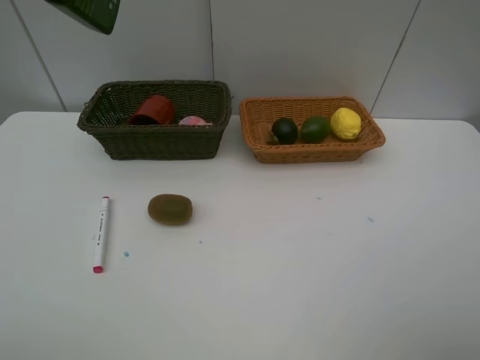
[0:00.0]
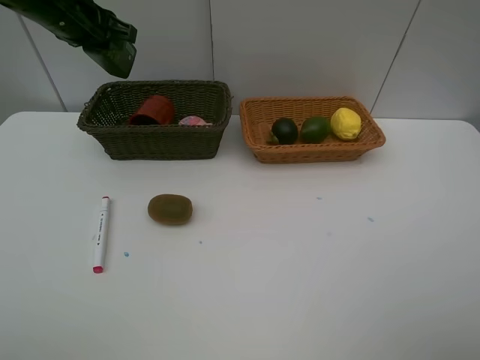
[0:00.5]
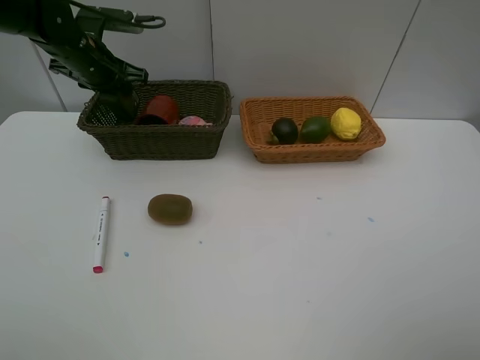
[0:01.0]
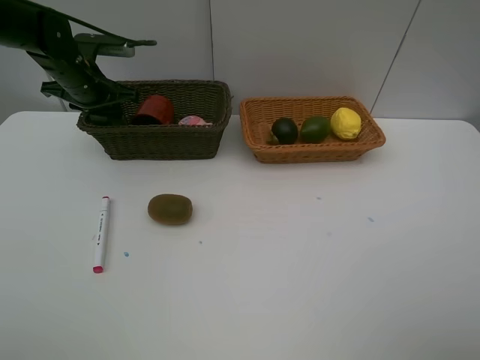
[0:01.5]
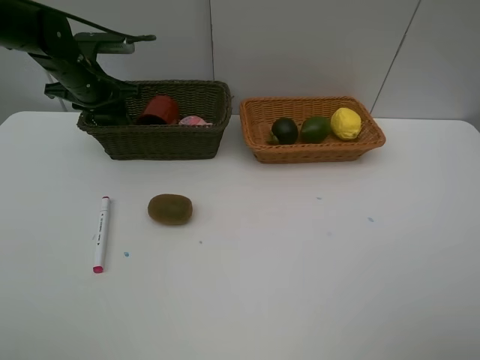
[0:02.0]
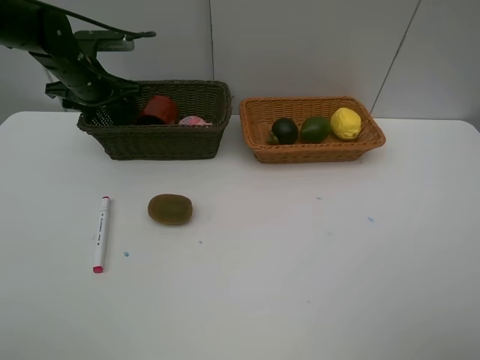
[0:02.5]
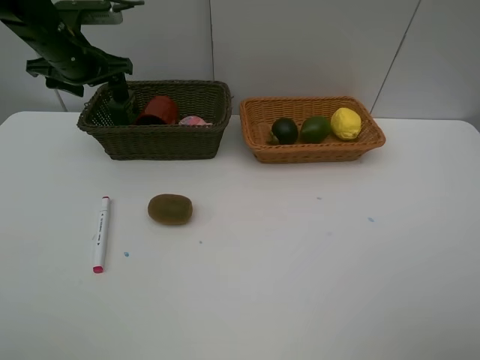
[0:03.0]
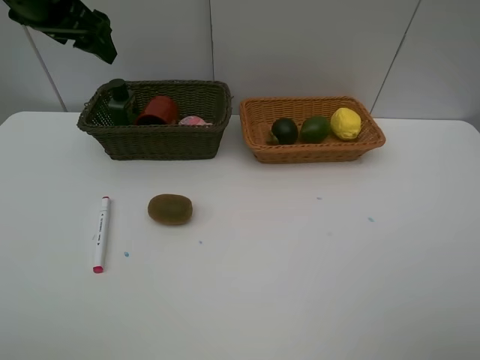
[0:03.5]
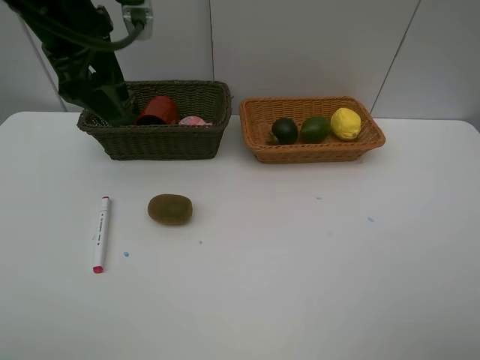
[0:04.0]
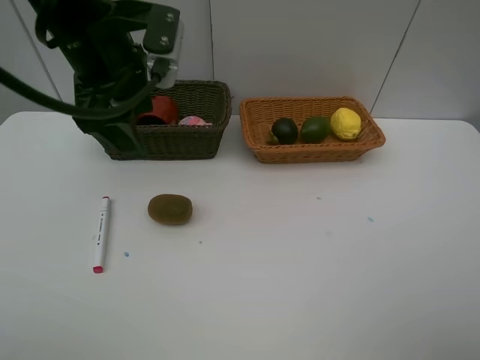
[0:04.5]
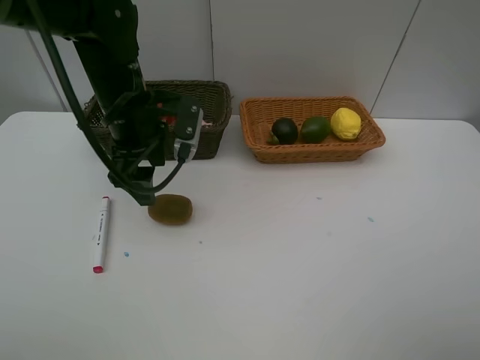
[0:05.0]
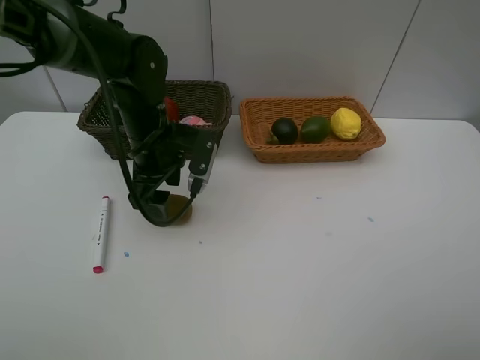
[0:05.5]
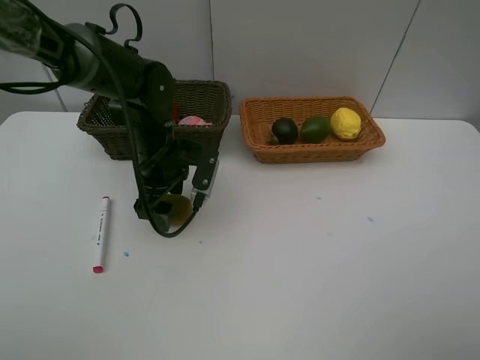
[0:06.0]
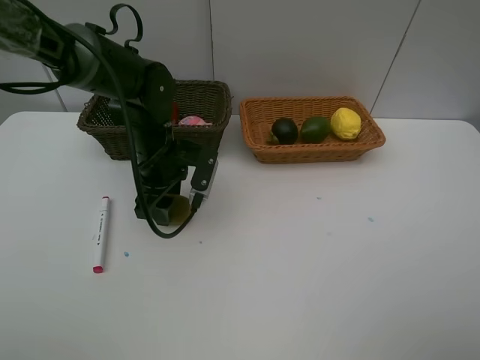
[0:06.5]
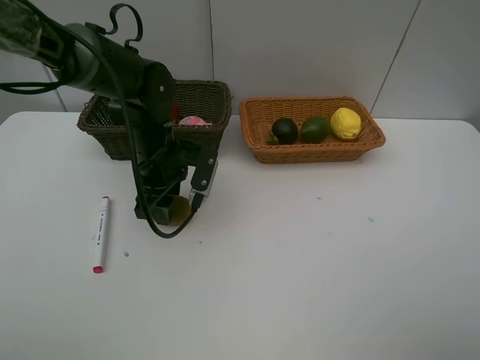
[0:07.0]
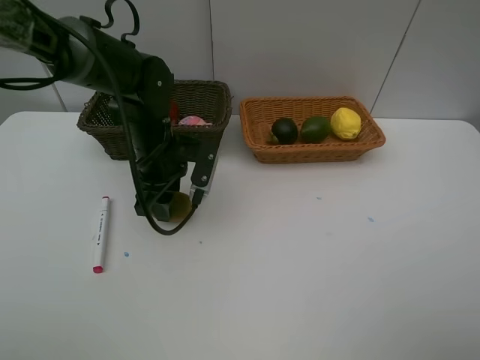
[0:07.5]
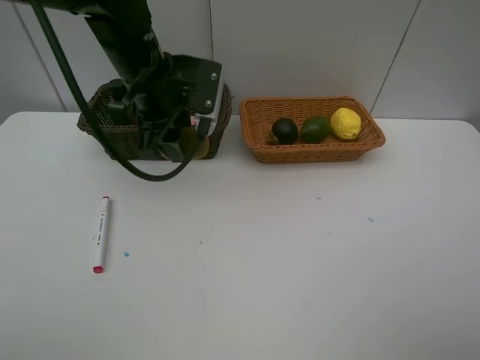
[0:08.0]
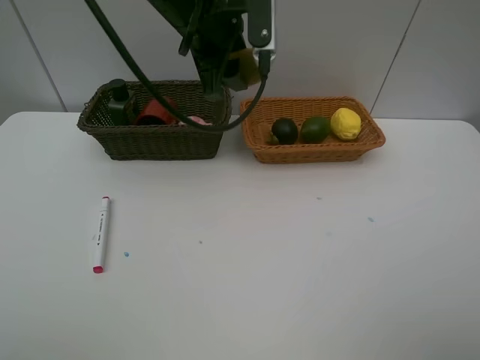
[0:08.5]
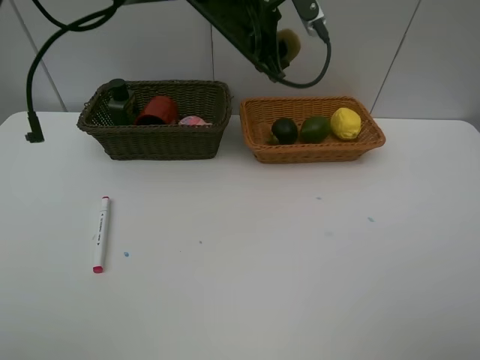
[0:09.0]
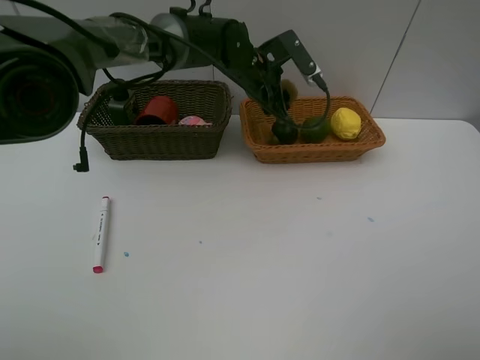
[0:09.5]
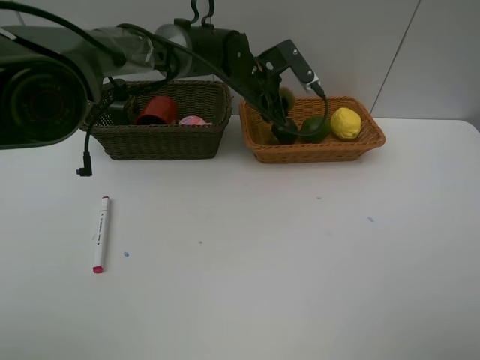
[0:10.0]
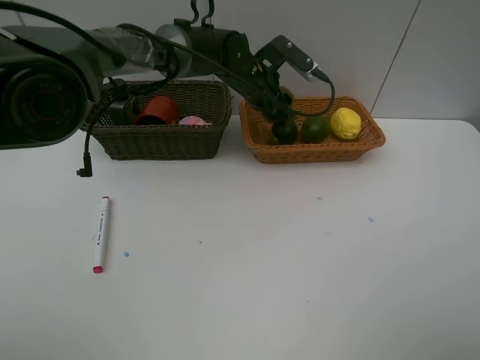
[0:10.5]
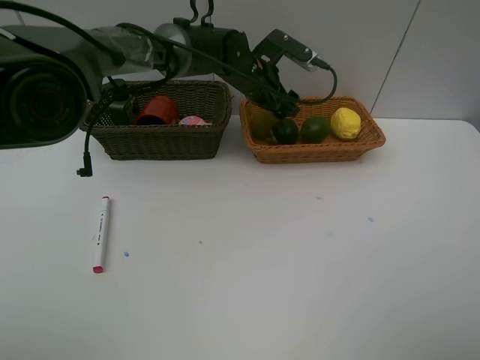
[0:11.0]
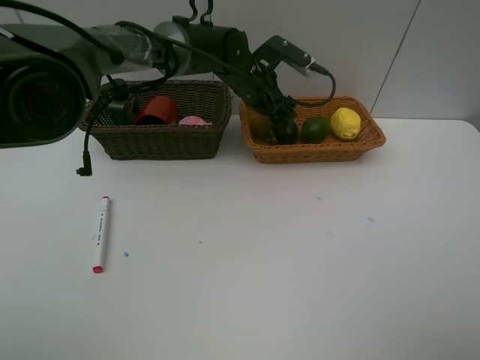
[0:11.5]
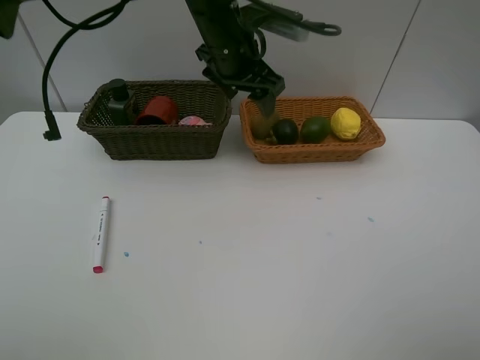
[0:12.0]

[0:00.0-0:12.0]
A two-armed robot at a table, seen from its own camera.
Task of the whole recording: Place multiple objects separately in different baskets.
Step, 0:00.0 to 0:03.0: Place the hard facial cleanser in the dark basket with left gripper.
Step, 0:03.5 to 0:07.5: Pick up kiwi with left gripper.
Step, 0:08.0 to 0:11.5: Place the kiwi in the light basket with left gripper.
0:00.0 to 0:02.0: The left gripper shifts roughly 20 cm downward and forward.
0:02.0 to 0:04.0: The left gripper travels upward, backward and to the right by roughly 20 cm, and opens up.
0:04.0 to 0:06.0: The left gripper shifts some 20 cm downward.
0:06.0 to 0:08.0: The left gripper heads upward, covering approximately 10 cm, and closes up.
0:08.0 to 0:10.0: The left gripper is displaced to the right, forward and downward by some 20 cm.
0:10.0 to 0:12.0: The left gripper moves upward and backward, about 10 cm, and opens.

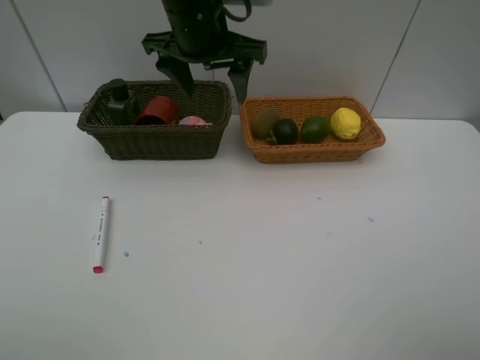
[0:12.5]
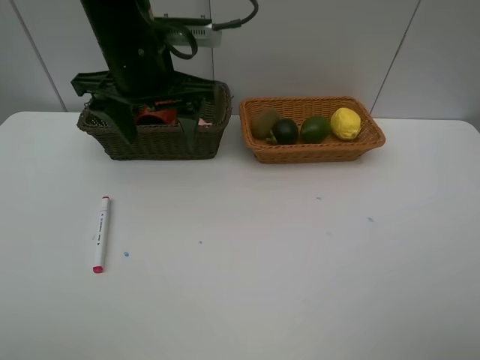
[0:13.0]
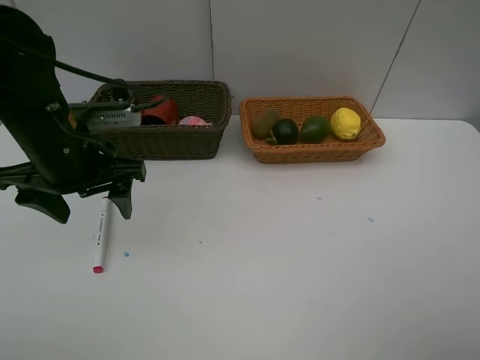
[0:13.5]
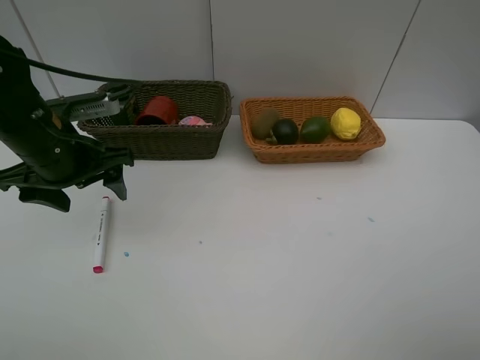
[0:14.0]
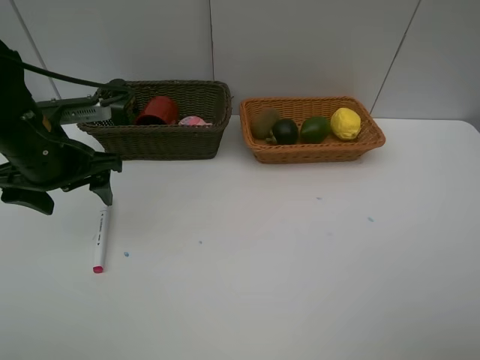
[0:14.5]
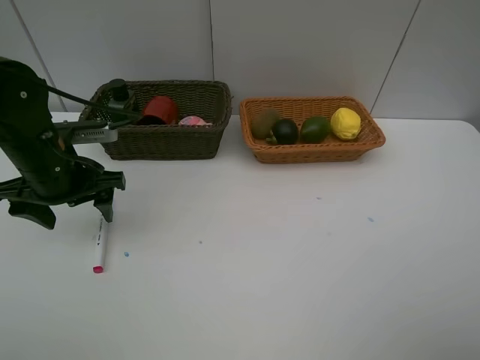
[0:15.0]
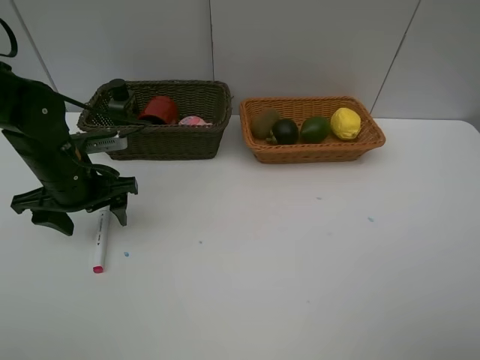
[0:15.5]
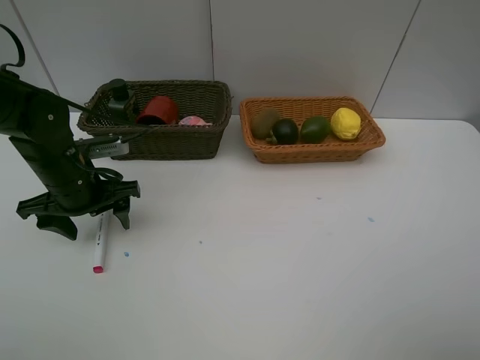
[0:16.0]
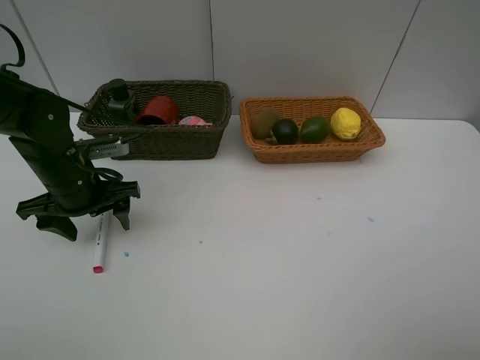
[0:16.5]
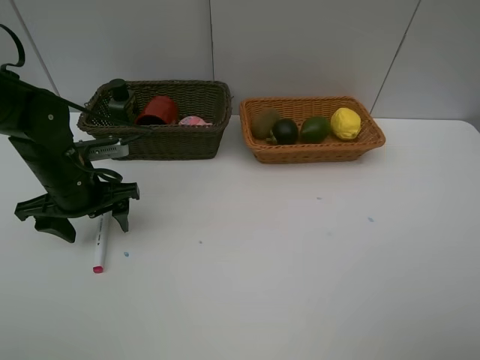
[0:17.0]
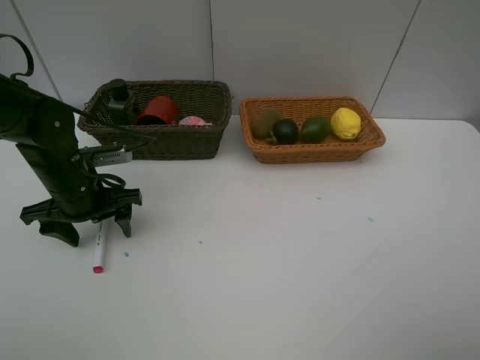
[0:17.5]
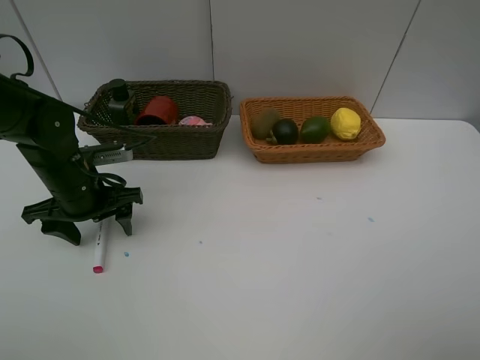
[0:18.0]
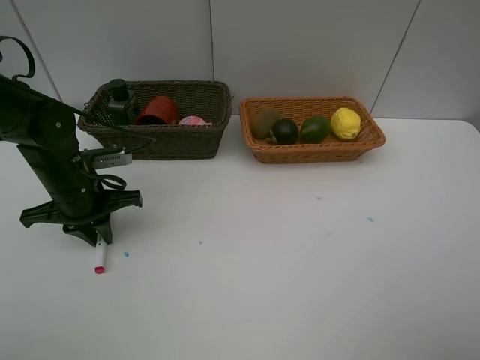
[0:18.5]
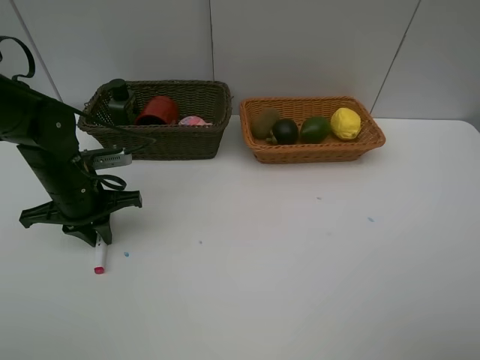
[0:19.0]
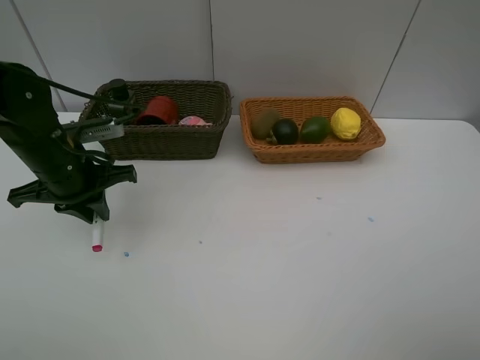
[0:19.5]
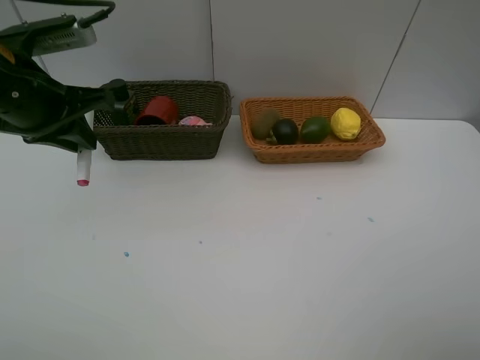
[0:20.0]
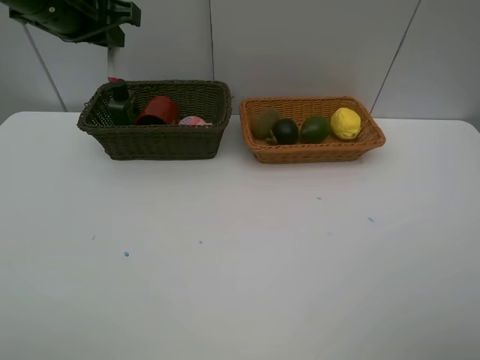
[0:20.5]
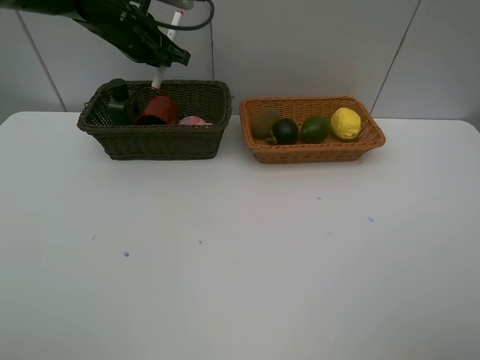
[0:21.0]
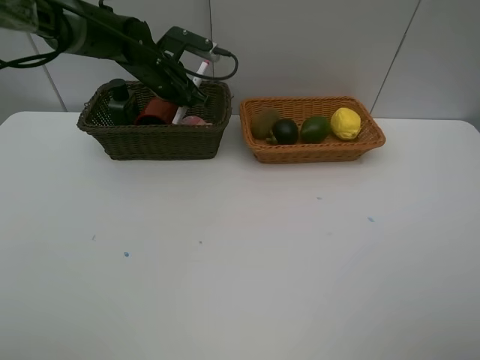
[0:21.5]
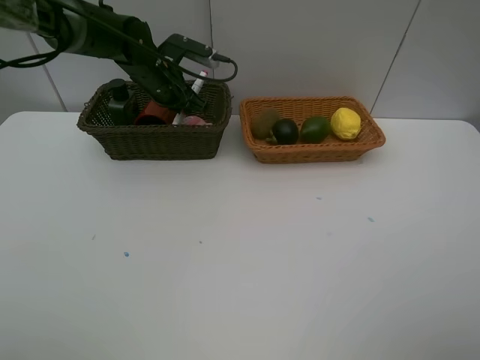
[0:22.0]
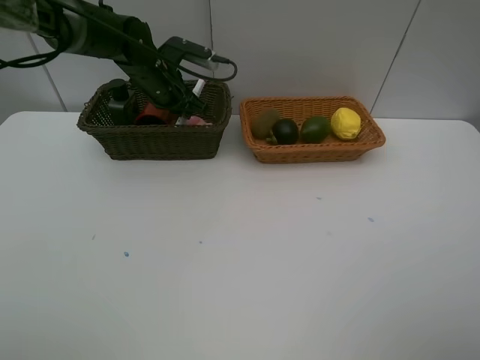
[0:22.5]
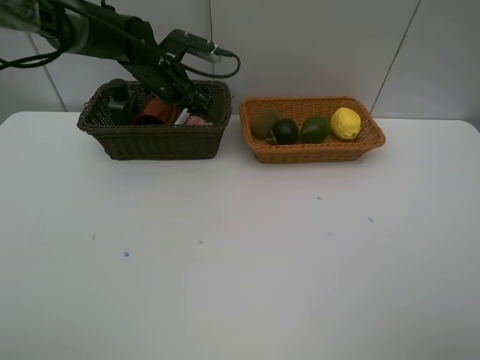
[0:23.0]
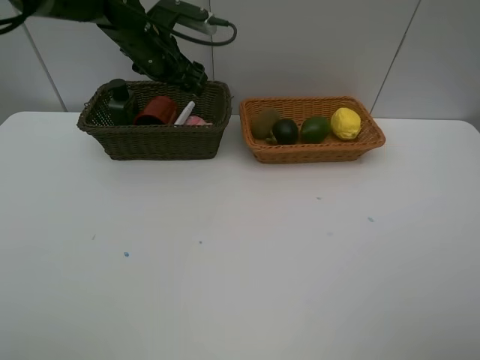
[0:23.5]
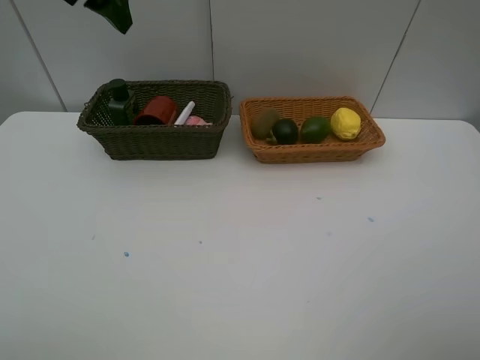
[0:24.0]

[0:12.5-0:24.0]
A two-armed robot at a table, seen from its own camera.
Task of the whole recording: Place multiple objects separately in different baskets.
Step, 0:12.5 to 0:19.0: Pick up the red marker with left gripper.
Step, 0:19.5 to 0:23.0: Place the red marker in the dark basket with left gripper.
0:12.5 to 0:14.5: The left gripper heads to the left, downward and backward, covering approximately 25 cm.
0:14.5 to 0:16.5: The left gripper goes about 5 cm downward.
0:16.5 to 0:18.5: The left gripper closes its fingers.
0:18.5 to 0:20.0: The left gripper heads upward, covering roughly 15 cm.
0:20.0 to 0:22.0: The left gripper moves forward, downward and to the right, roughly 25 cm.
0:22.0 to 0:24.0: The left gripper shifts roughly 25 cm upward and backward, and opens its fingers.

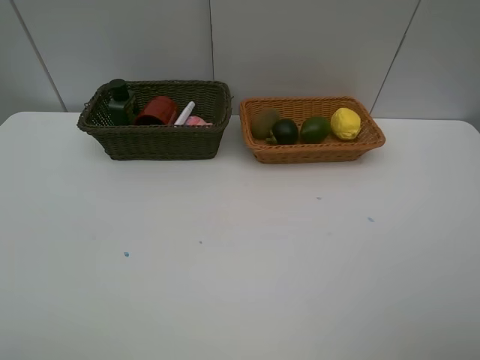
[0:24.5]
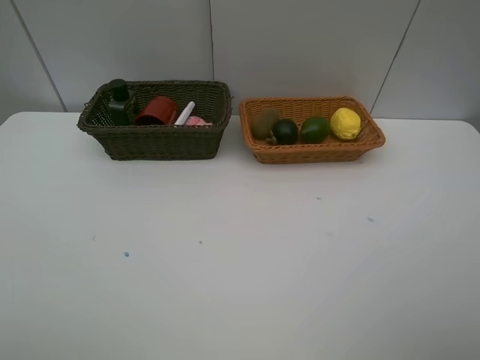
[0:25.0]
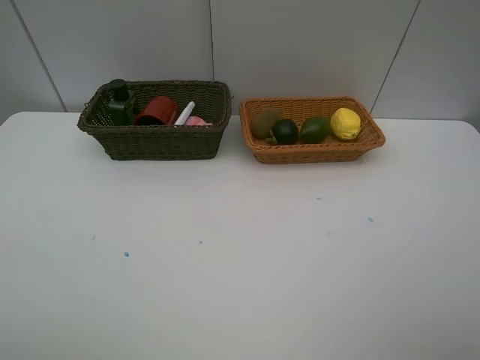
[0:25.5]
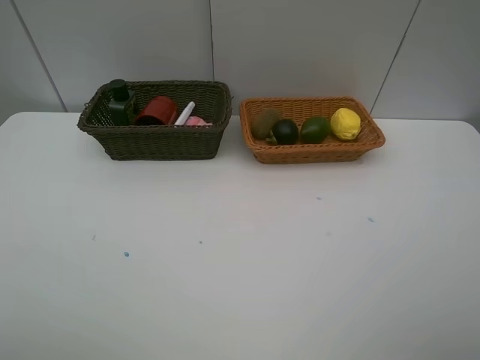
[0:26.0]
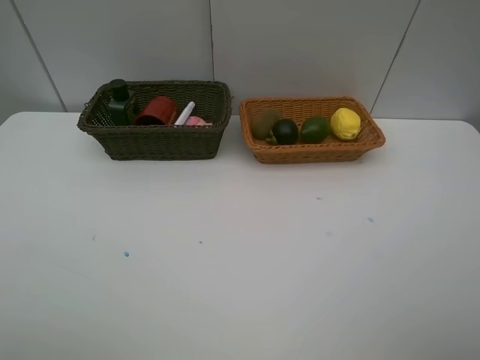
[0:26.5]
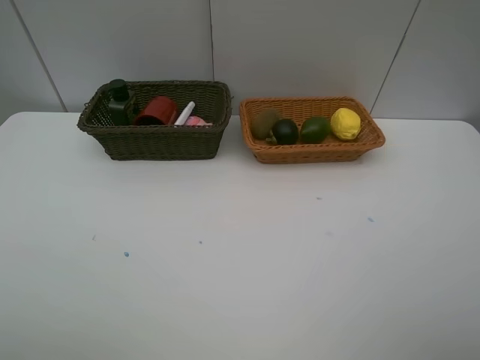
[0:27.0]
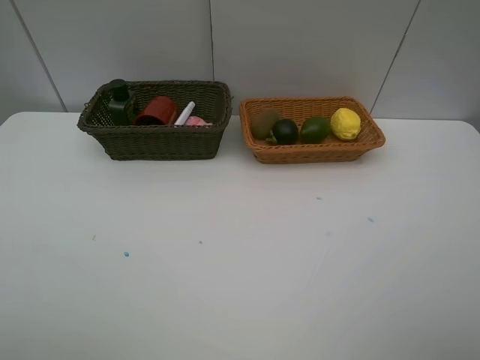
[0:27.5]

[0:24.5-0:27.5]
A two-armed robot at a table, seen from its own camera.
Task of the whole recording: Place multiple objects separately in different baskets.
0:26.0 to 0:27.5: Both grippers stay put.
